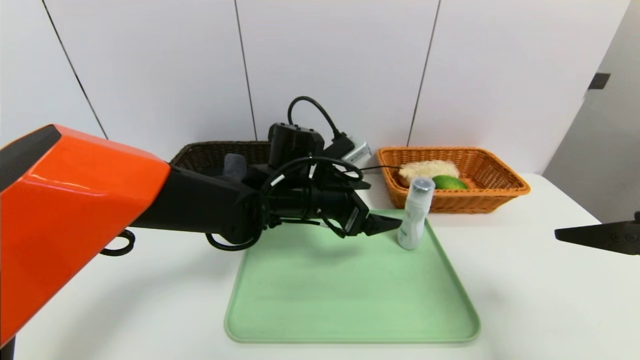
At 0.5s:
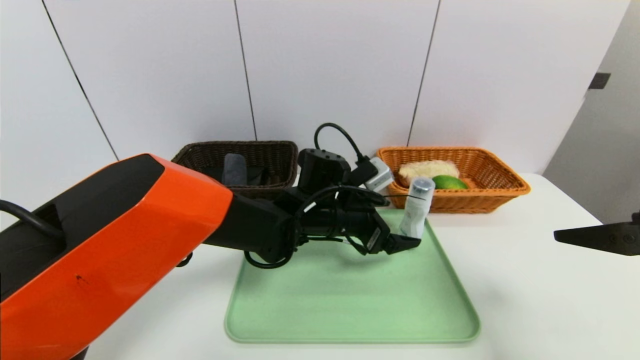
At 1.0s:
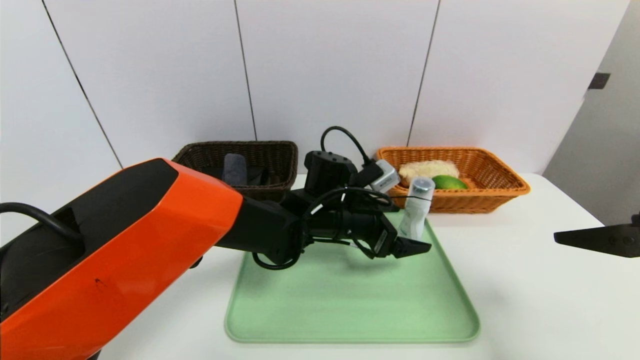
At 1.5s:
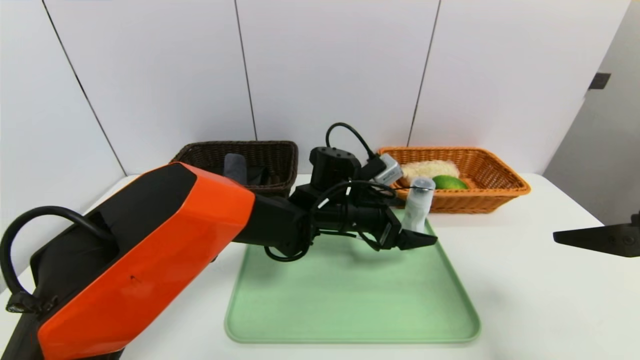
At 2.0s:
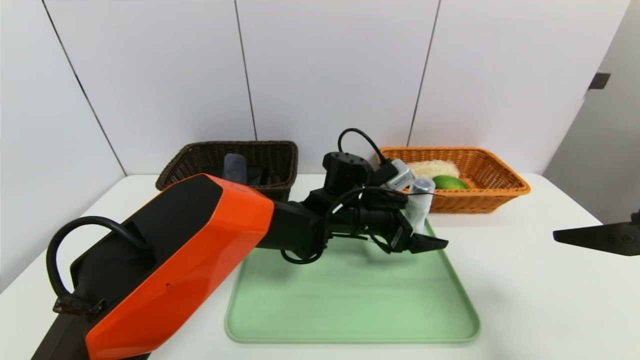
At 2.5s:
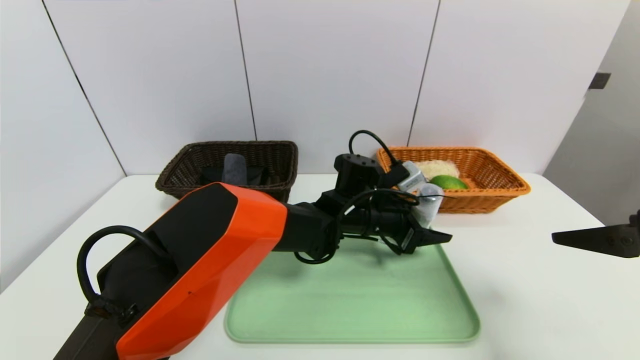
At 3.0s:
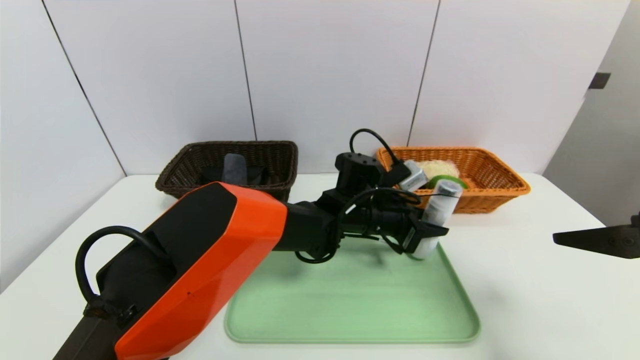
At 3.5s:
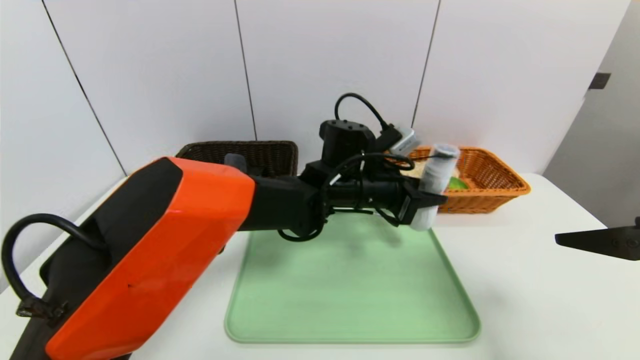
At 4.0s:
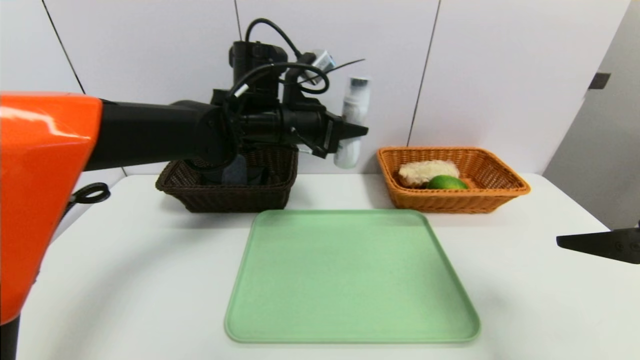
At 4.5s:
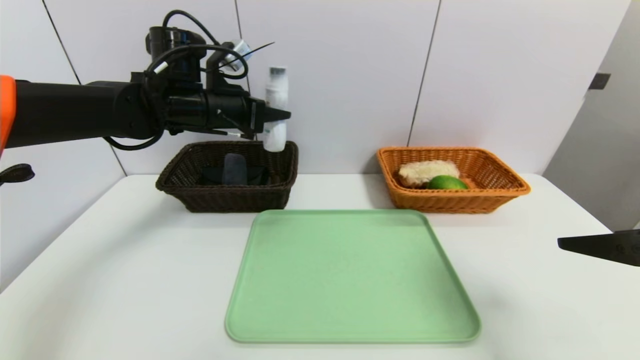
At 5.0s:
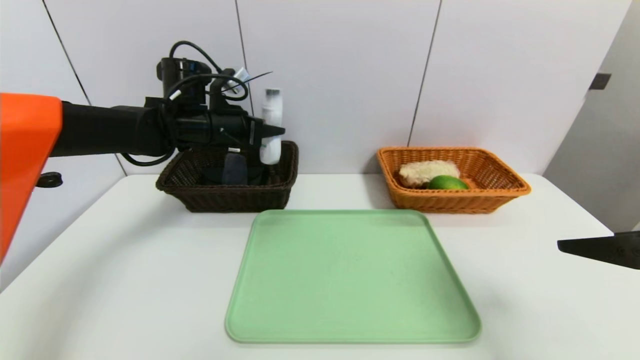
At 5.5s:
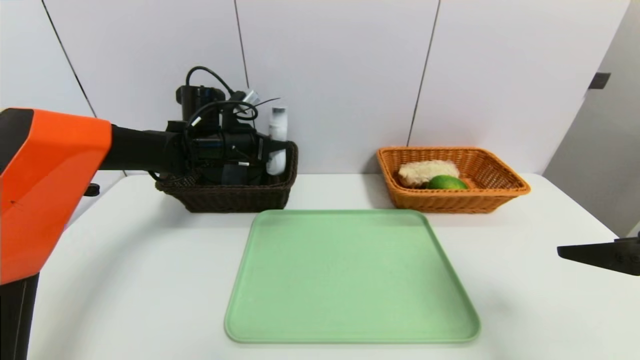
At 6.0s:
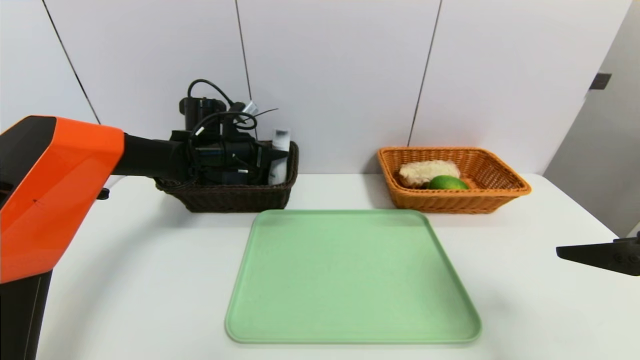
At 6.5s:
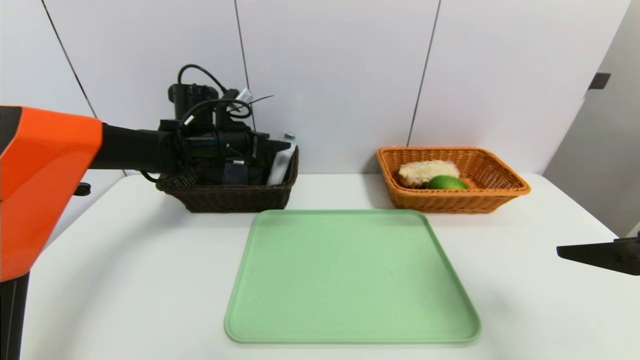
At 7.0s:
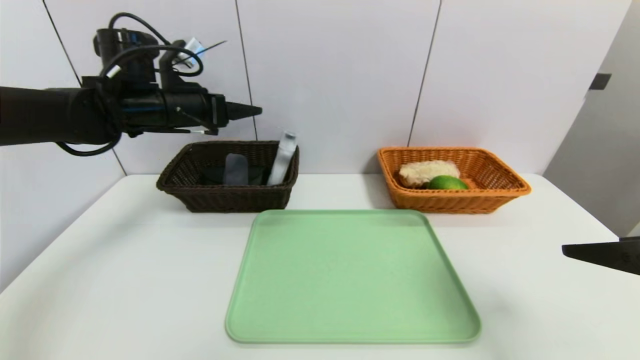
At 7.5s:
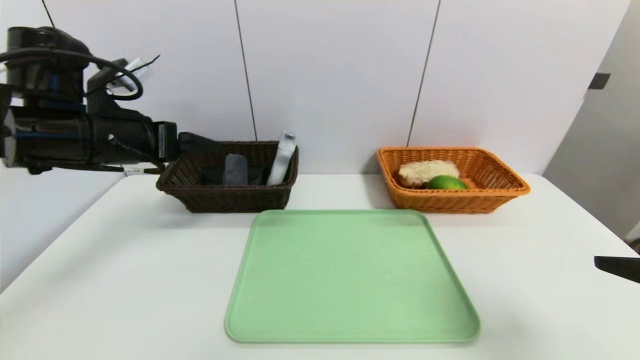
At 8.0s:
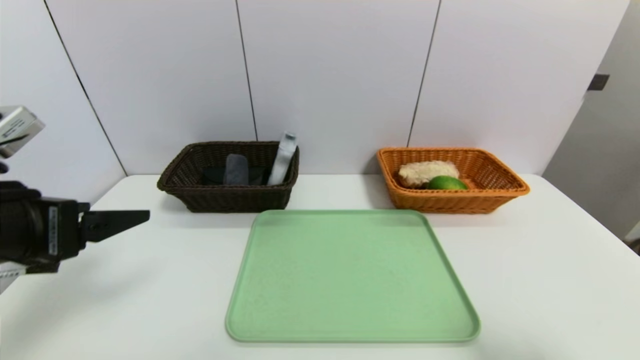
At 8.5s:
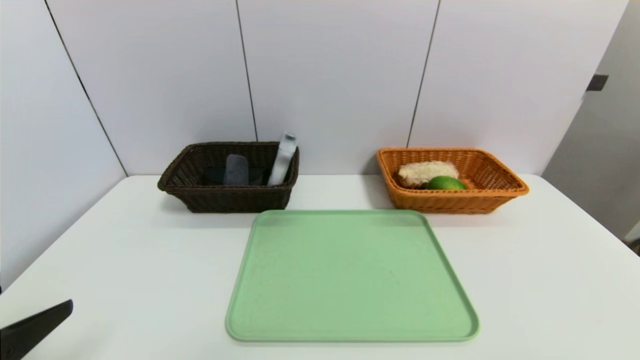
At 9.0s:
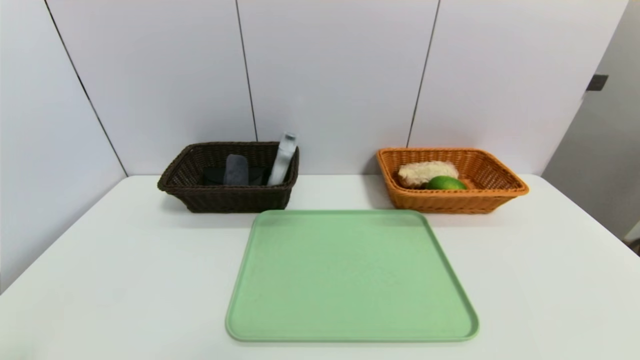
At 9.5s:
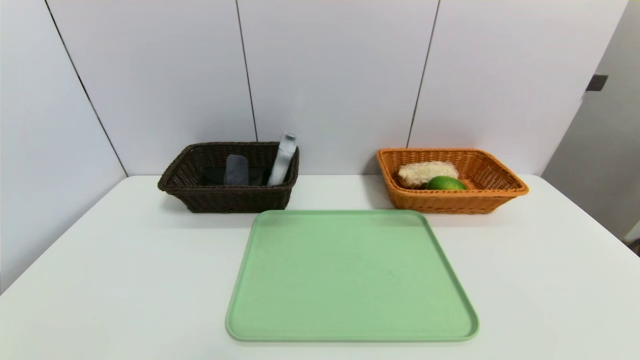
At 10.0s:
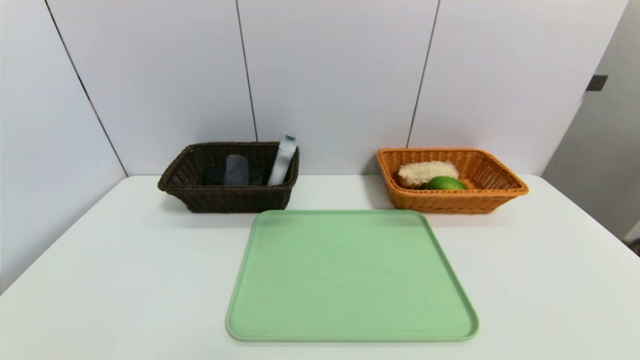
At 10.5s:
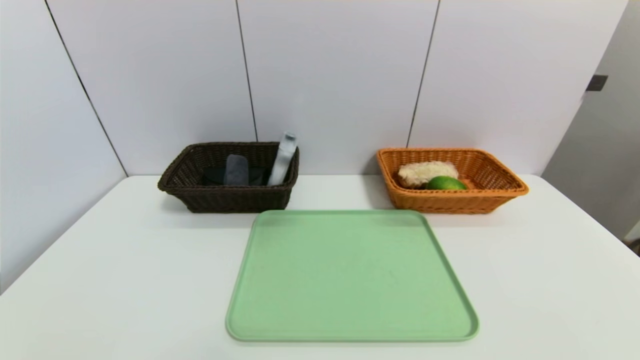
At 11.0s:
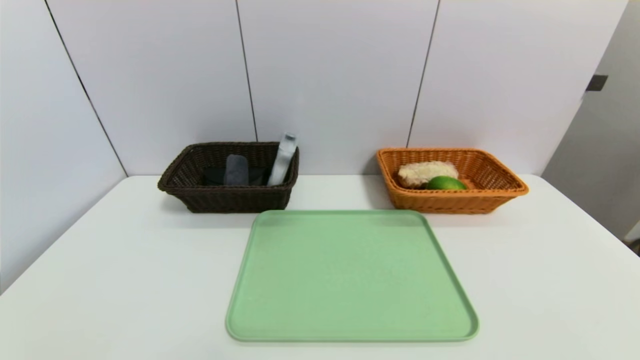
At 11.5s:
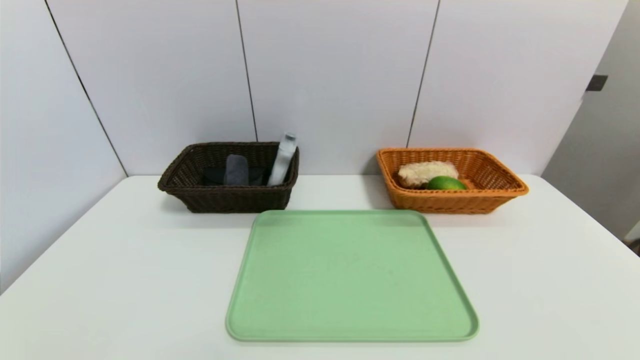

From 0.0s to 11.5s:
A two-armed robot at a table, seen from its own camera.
Task of the whole recording: place the food in the right basket with the right gripper, and place the non food items in the left basket with the left gripper.
Step, from 0.0s to 6.5s: Grasp the washing liquid and put it in the left basket.
From 0.0s to 2.0s: The left gripper travels to the right by roughly 10 cm.
From 2.0s to 4.0s: The left gripper is displaced upward and to the left by roughly 20 cm, and closes its fingers.
From 4.0s to 6.0s: The left gripper is displaced to the left, forward and downward by about 15 cm.
From 6.0s to 7.5s: The left gripper goes roughly 20 cm backward, upward and to the left, and opens its fingers.
From 7.5s to 9.5s: The right gripper is displaced backward and downward by approximately 20 cm. Meanwhile the left gripper travels backward and downward by some 35 cm.

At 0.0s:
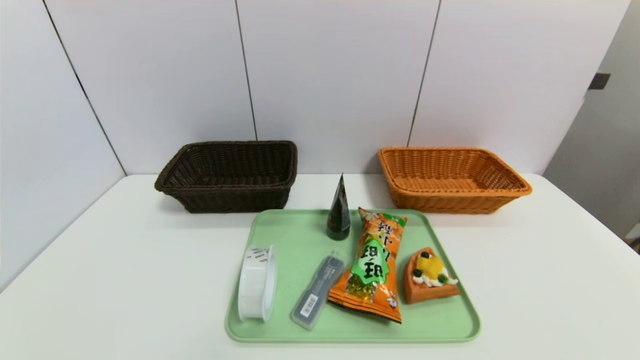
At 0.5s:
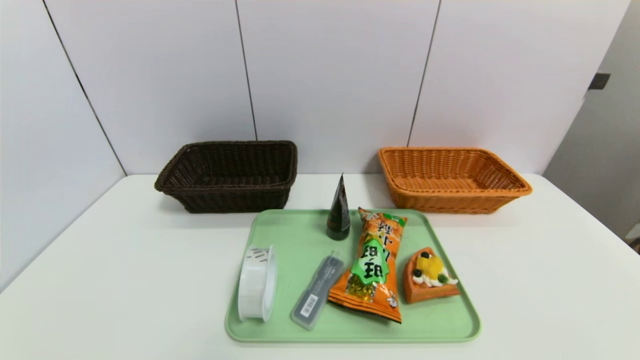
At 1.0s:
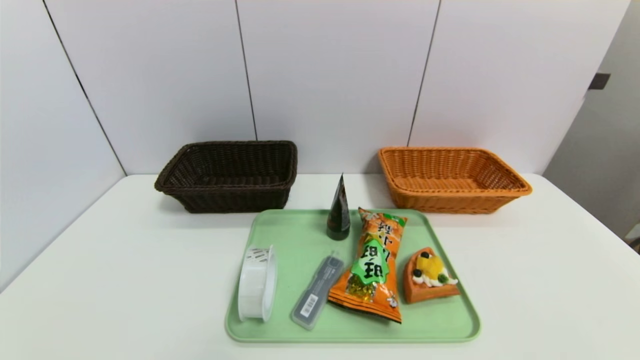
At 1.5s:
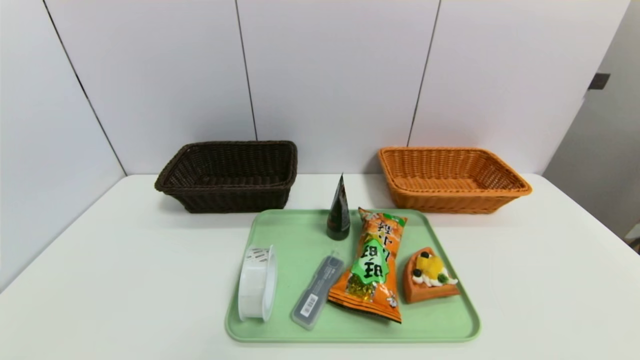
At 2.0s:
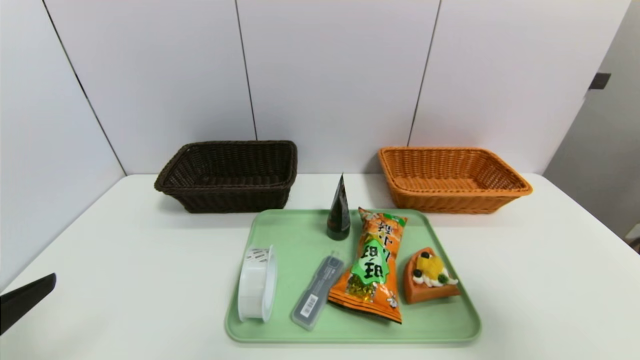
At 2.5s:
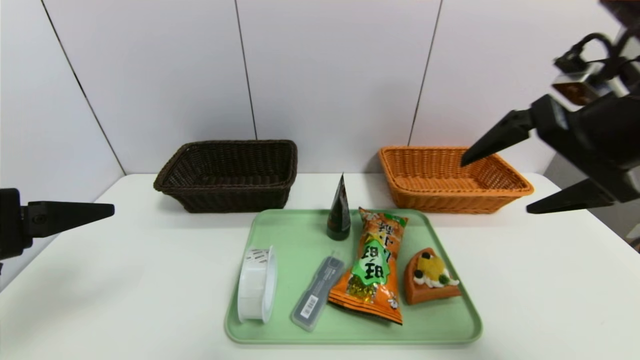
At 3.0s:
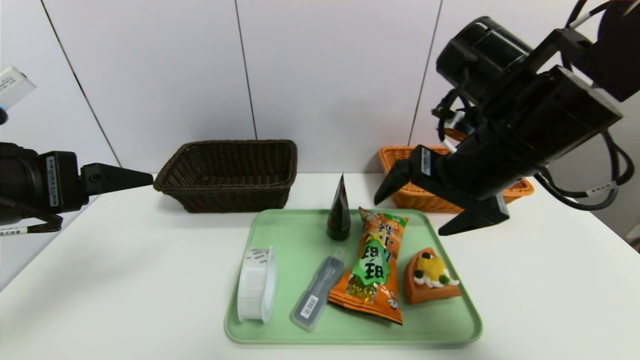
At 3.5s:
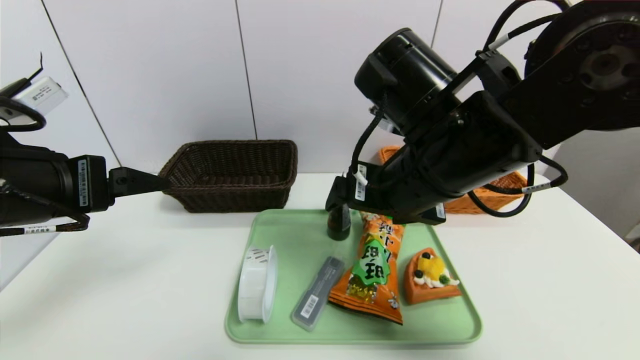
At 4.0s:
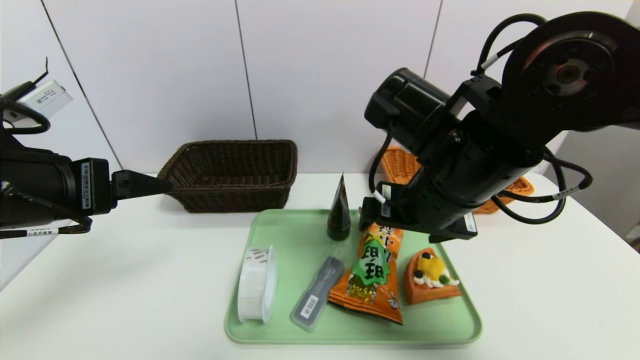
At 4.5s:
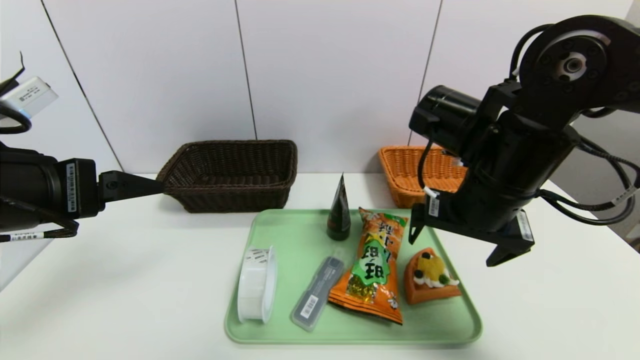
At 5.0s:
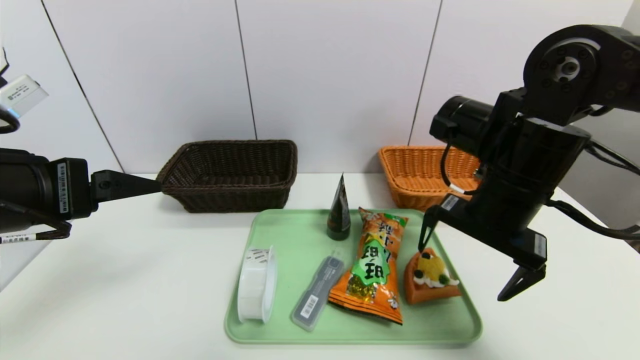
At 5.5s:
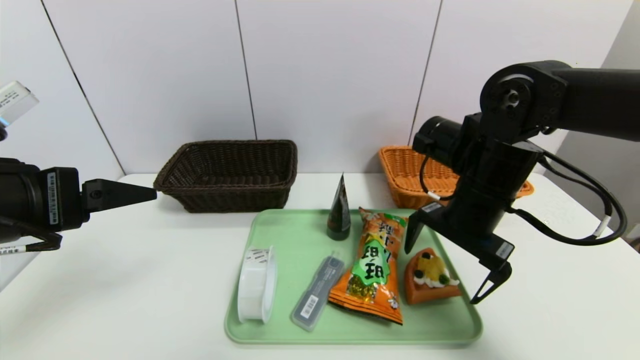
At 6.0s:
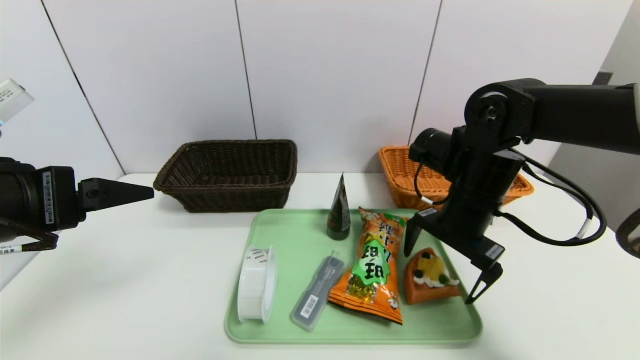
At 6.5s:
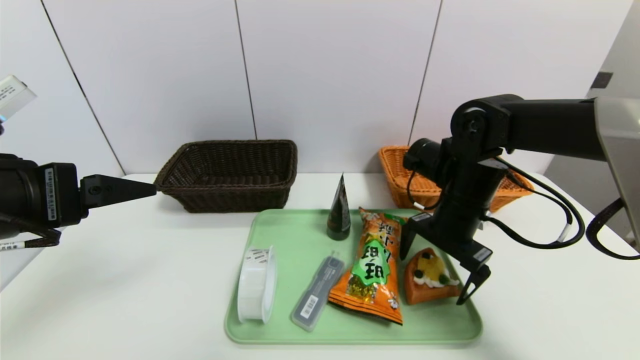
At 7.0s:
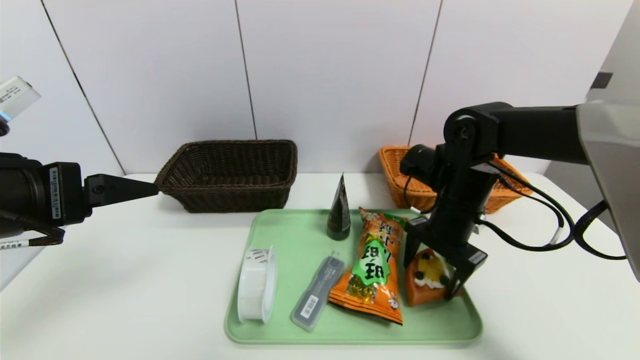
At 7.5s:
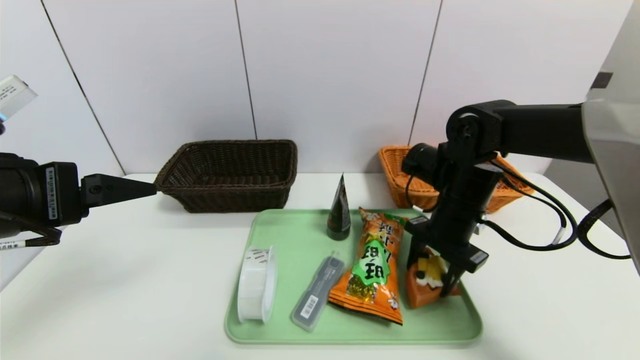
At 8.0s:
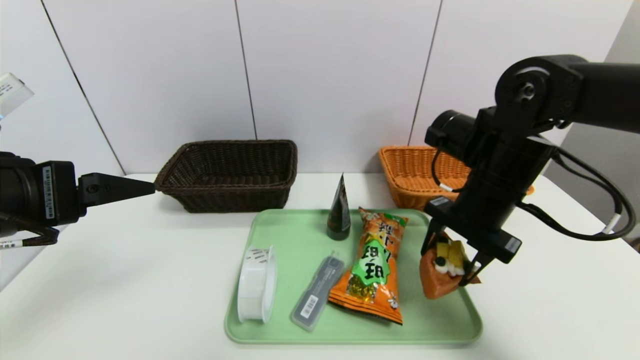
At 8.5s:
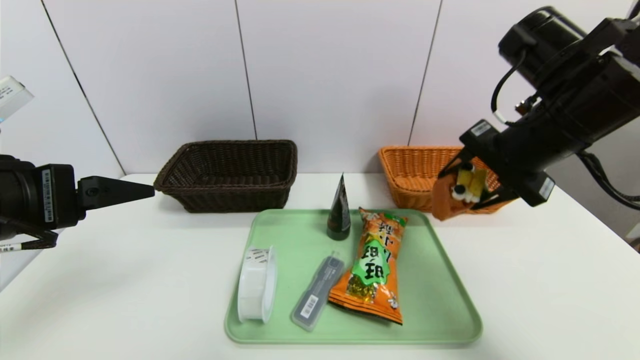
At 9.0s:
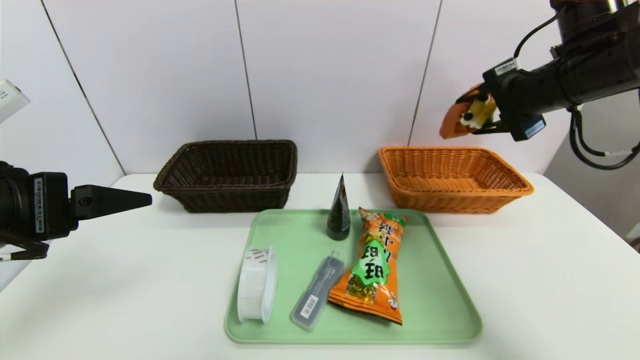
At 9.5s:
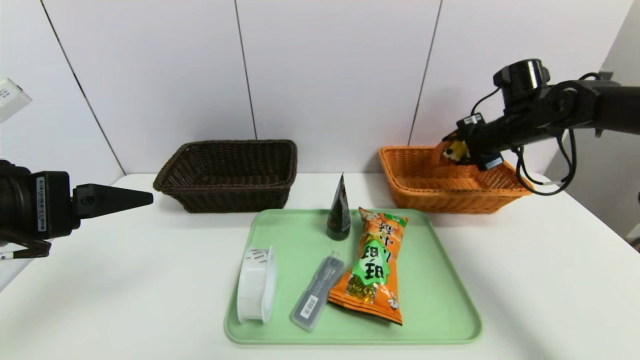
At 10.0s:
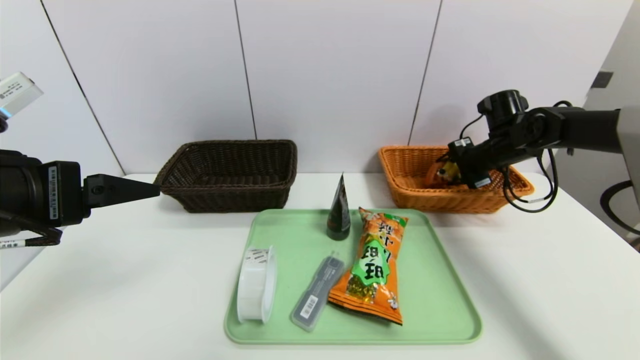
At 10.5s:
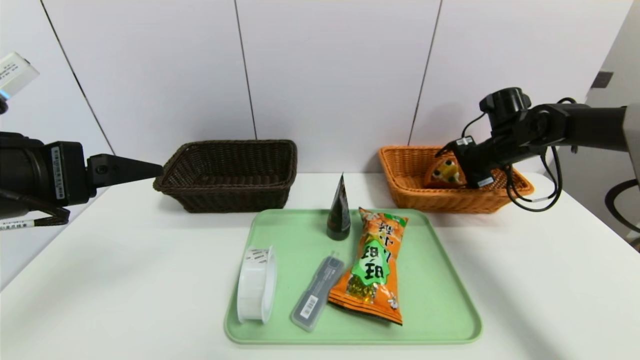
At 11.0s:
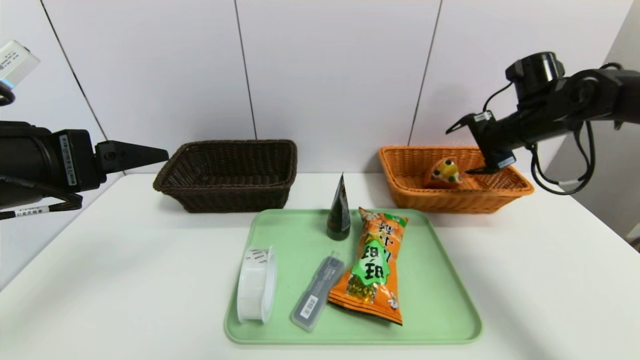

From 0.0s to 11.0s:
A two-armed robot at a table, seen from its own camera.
Task of the whole recording: place the food in the right basket with the right gripper, and place the non food items in the left basket with the left gripper.
Step, from 0.0s to 10.5s: Grasp the waffle and put it in the right basket.
From 0.0s to 2.0s: The left gripper is displaced upward and forward by about 20 cm, while the right gripper heads upward and forward, covering approximately 30 cm.
From 2.0s to 3.5s: The right gripper travels to the left and forward by about 25 cm; the left gripper is displaced forward by about 10 cm.
From 3.5s to 5.5s: The right gripper heads to the right, downward and forward, covering some 15 cm.
From 5.5s to 7.5s: The right gripper shifts by roughly 5 cm, and closes up.
From 7.5s to 9.0s: The right gripper goes about 20 cm upward and to the right.
From 9.0s to 11.0s: The right gripper shifts approximately 10 cm downward and forward, and opens up.
